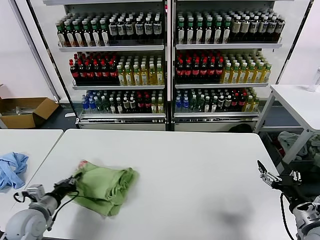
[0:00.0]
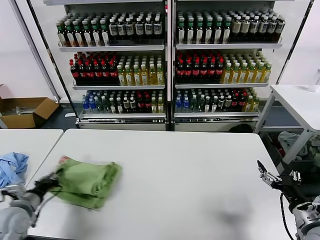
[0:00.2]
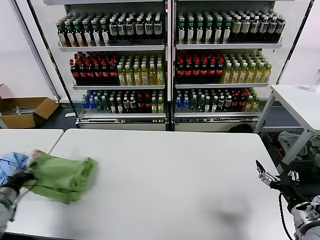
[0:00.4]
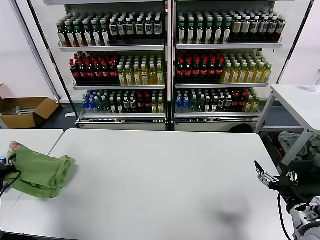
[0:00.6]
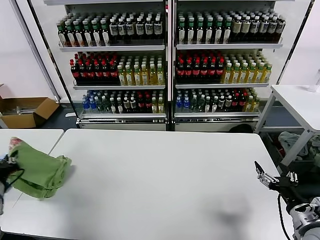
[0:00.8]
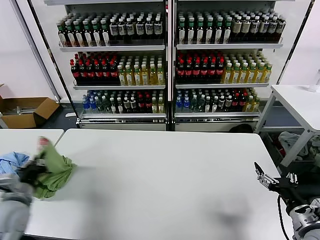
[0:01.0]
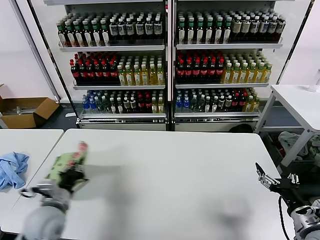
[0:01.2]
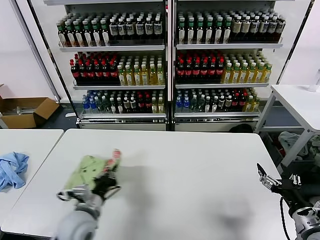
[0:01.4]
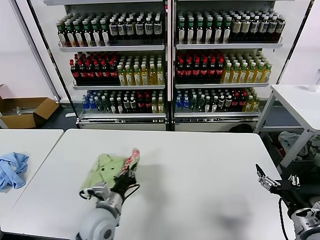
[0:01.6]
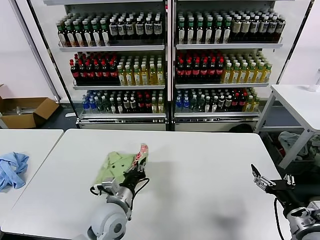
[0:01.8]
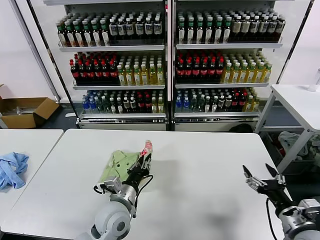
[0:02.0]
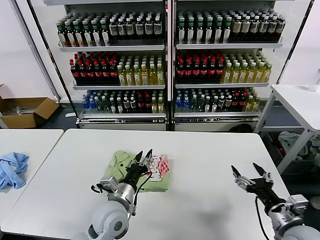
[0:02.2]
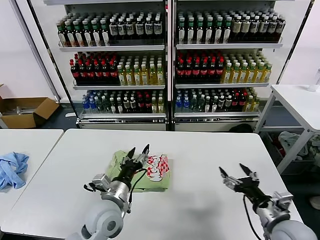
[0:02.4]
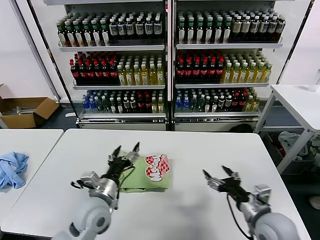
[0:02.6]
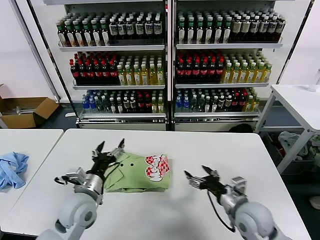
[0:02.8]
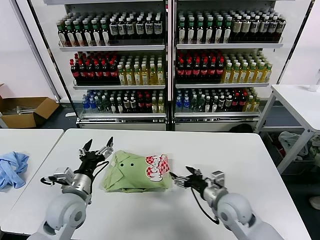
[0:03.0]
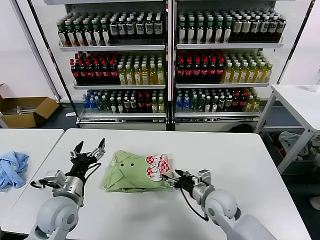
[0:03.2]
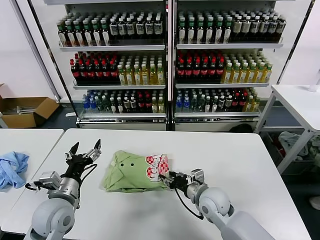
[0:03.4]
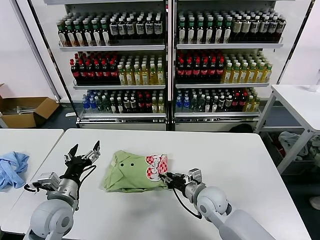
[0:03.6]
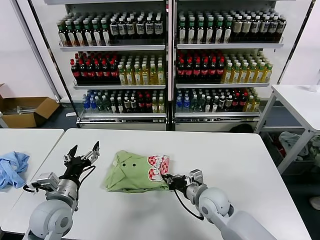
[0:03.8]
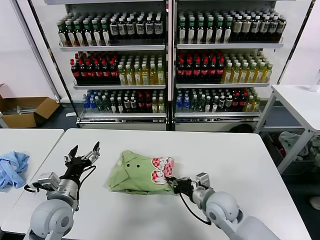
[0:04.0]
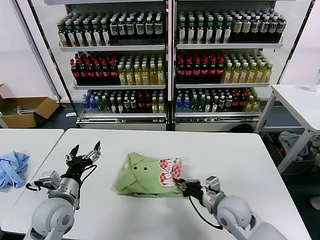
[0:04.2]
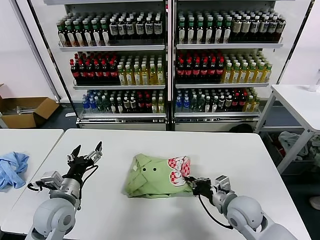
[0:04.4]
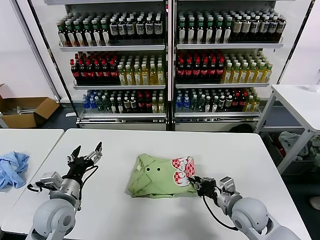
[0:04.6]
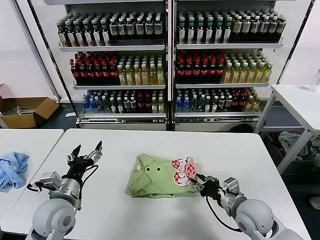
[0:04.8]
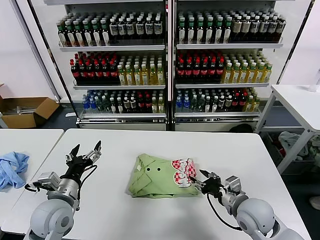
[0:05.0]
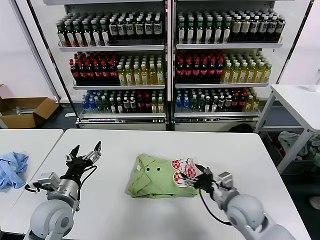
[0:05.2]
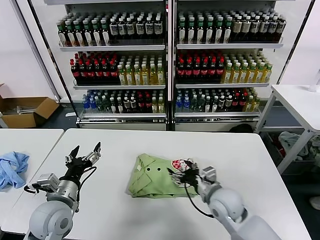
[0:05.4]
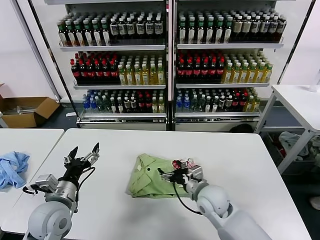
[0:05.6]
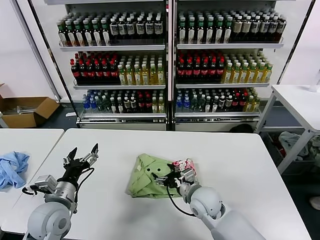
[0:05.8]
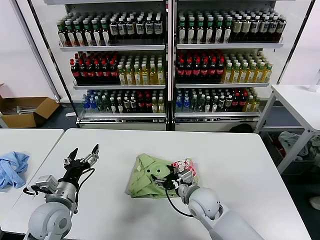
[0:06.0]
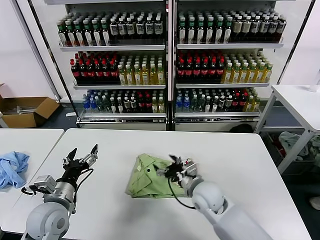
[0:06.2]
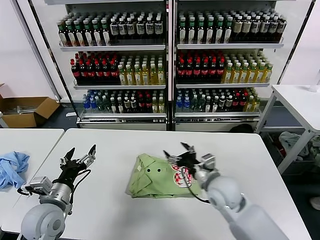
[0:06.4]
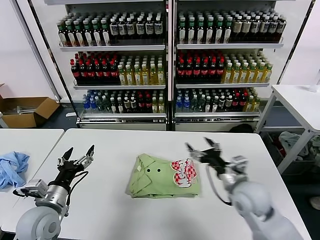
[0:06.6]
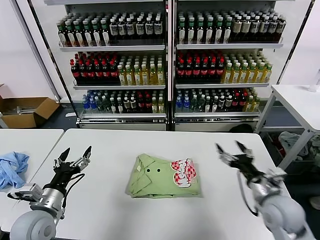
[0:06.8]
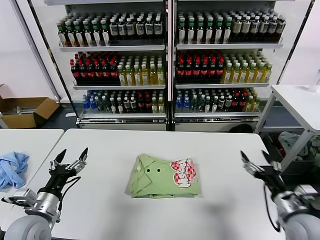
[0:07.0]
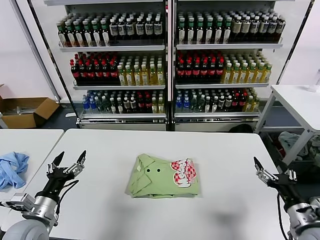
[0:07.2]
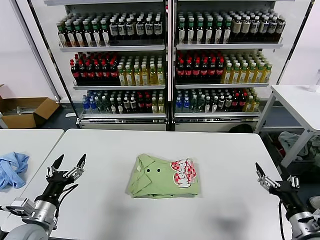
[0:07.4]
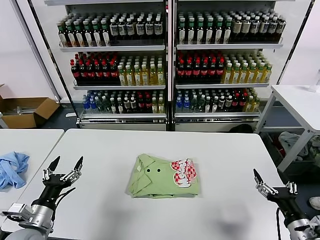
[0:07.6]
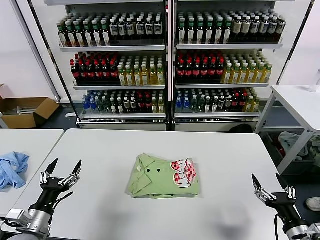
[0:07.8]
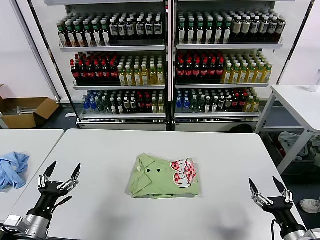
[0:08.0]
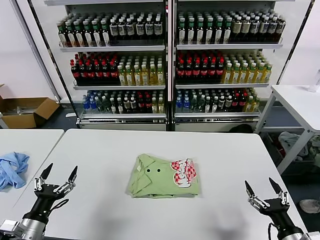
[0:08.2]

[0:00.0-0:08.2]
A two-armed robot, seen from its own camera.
Task of the whole recording: fold and organize the clothes.
Step, 0:00.0 to 0:02.0: Flip the folded clothes over with left gripper.
Step, 0:02.4 to 0:06.0: Drag the clothes to the center of the table.
0:00.0 to 0:01.6: The left gripper is displaced to the right by about 20 cm.
0:01.6 to 0:03.2: The left gripper shifts roughly 10 cm to the left, and opens its fingers. Meanwhile the right gripper moves to the left and forward, some 25 cm.
0:03.2 to 0:05.0: The right gripper moves to the right, approximately 5 cm, and closes and opens again.
0:05.0 to 0:06.6: The right gripper goes to the left and returns, approximately 15 cm each way, and opens its fingers.
0:06.6 to 0:08.2: The right gripper moves backward and to the right, some 25 cm. Meanwhile the left gripper heads backward and to the left, covering about 10 cm.
